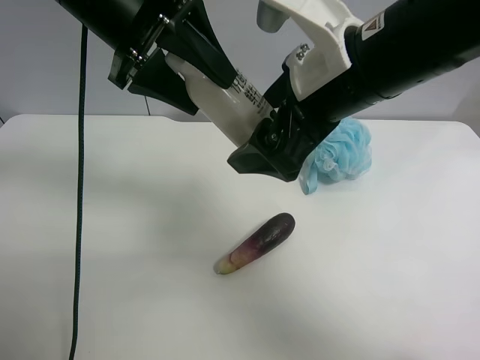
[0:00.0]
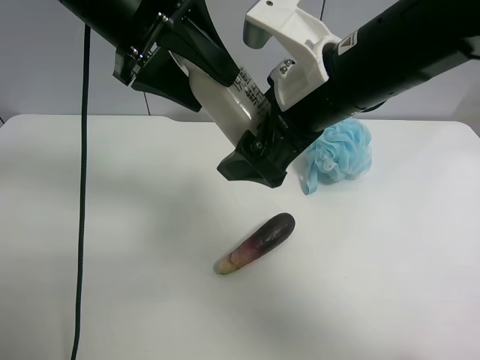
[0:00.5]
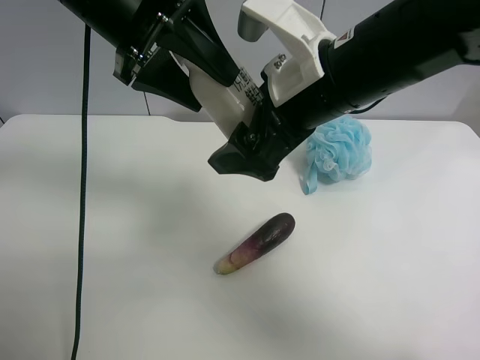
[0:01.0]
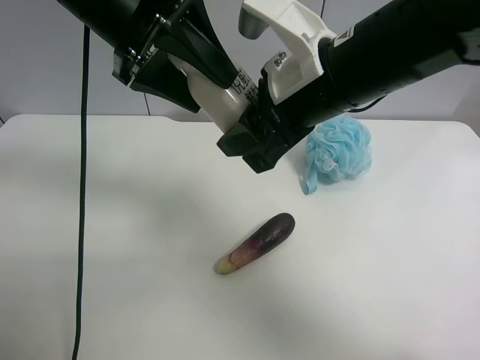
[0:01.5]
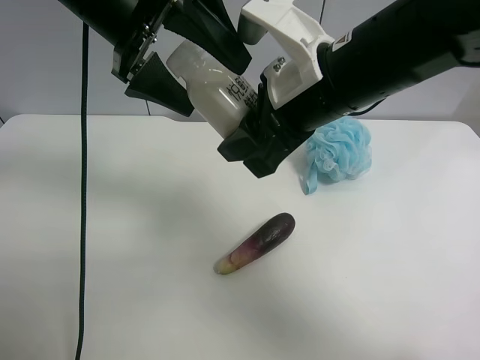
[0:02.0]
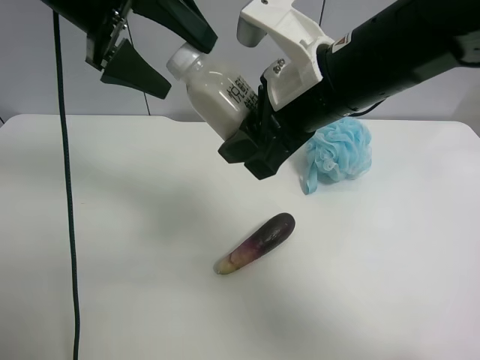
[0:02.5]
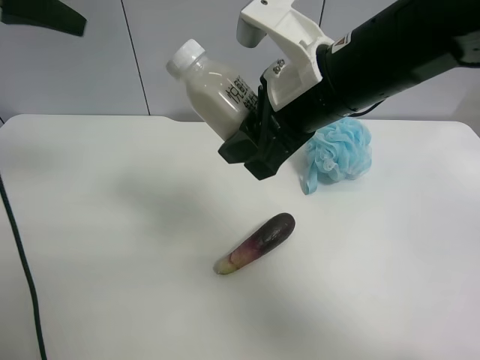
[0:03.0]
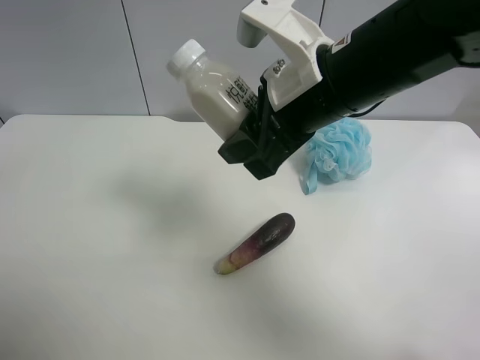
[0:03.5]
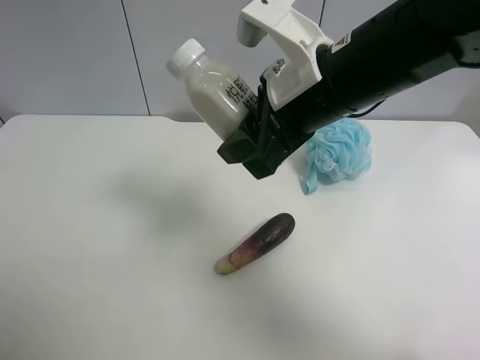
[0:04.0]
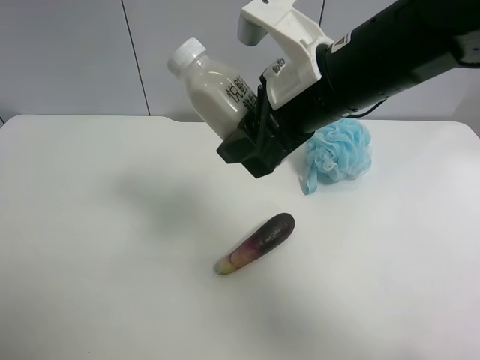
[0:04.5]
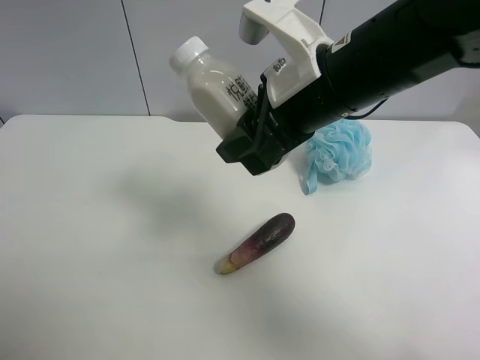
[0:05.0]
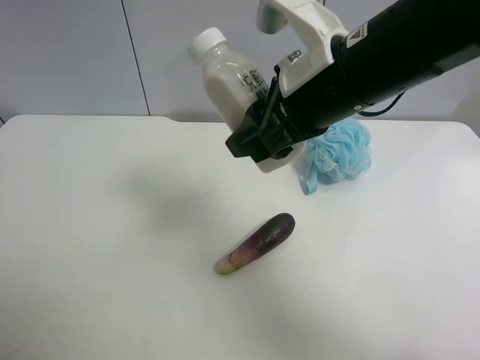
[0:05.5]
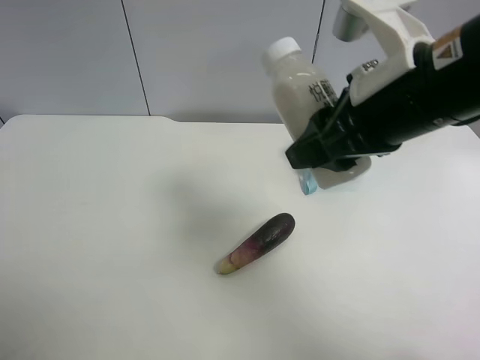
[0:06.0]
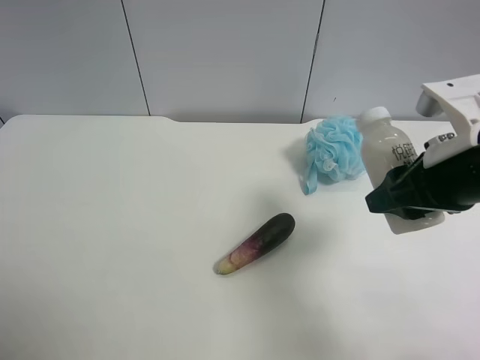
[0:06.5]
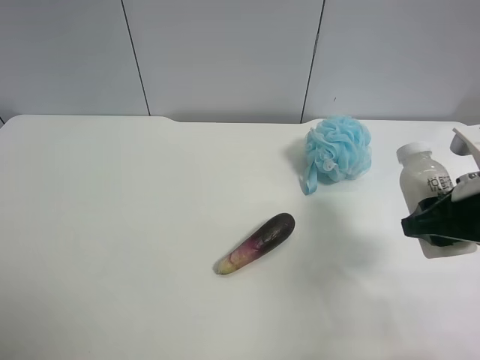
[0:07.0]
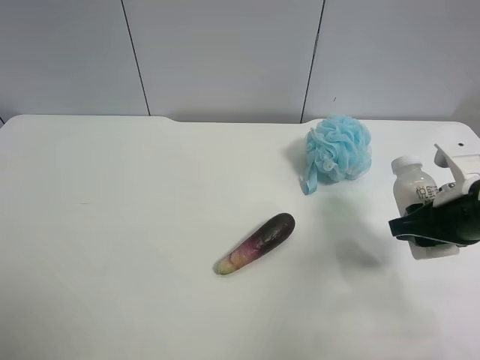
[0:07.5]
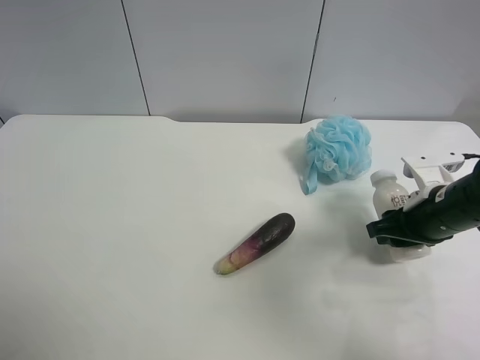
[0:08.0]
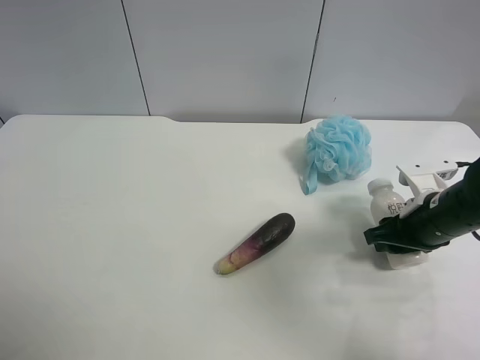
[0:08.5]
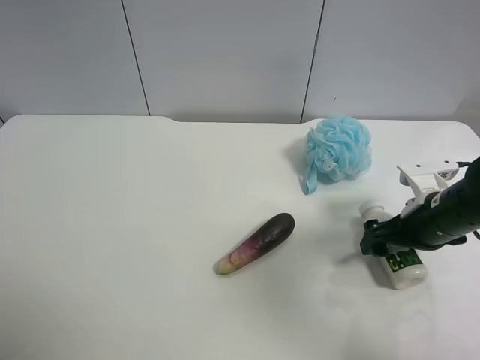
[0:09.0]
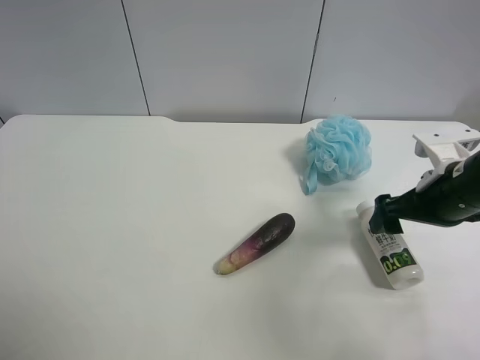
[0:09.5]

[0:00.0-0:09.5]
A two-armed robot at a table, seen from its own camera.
Task of the whole recording: use the left gripper to pick up the item and transfer it from the left gripper to the right gripper.
0:00.0 to 0:02.0: The right gripper closes its fingers; the left gripper opens its fingers.
0:02.0 to 0:04.0: The left gripper is displaced backward and to the left by some 35 cm.
0:04.0 to 0:05.5: The left gripper moves downward, about 10 cm.
0:05.5 to 0:07.5: The right gripper moves to the right and downward, roughly 25 cm.
0:07.5 to 0:09.5: The right gripper opens its fingers.

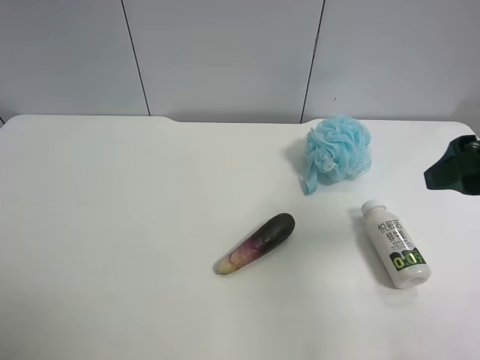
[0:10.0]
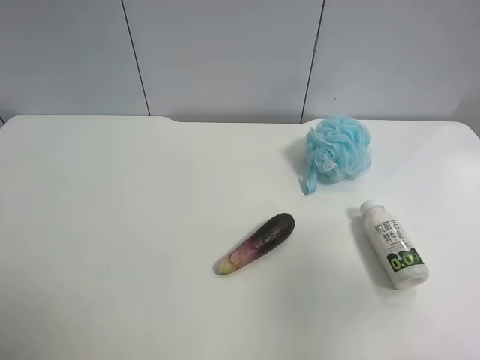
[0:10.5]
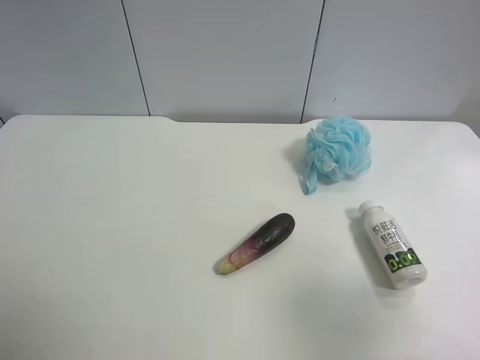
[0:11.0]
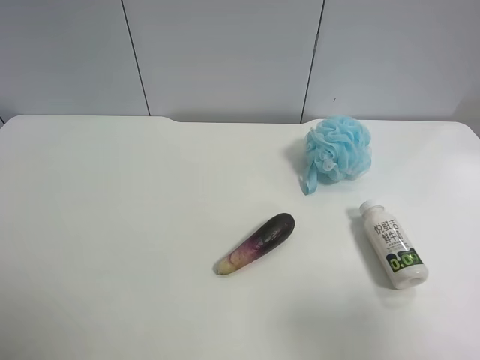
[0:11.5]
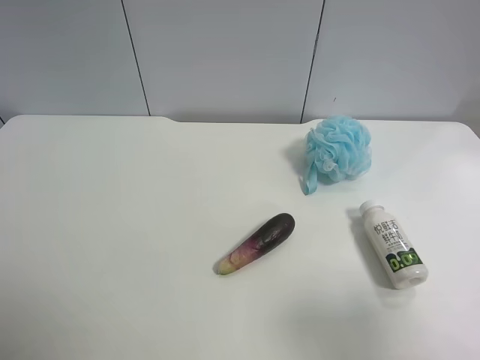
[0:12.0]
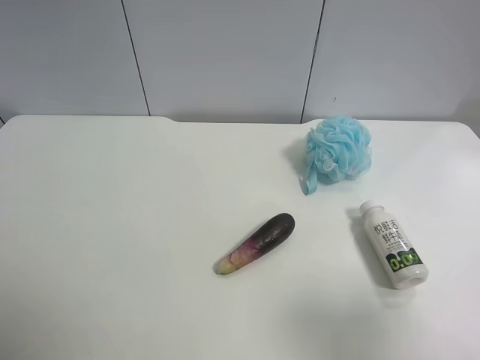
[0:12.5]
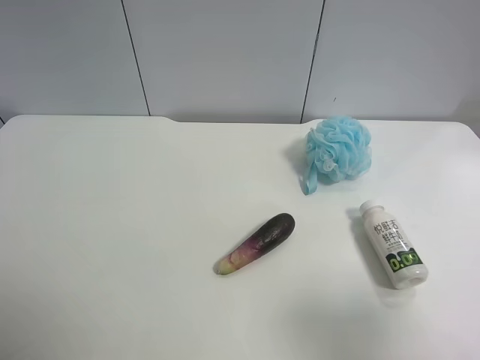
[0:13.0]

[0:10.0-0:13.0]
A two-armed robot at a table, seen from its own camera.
Task of the whole recording: use the left gripper to pick up the item and transfer it from the left gripper to the right gripper.
0:10.0 to 0:11.5: The right gripper travels backward by some 15 cm.
0:11.5 to 0:13.0: Neither gripper changes place.
